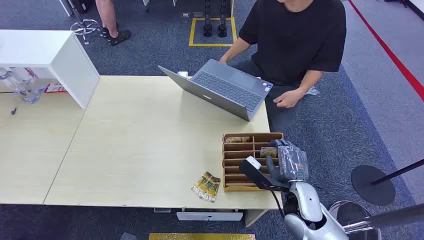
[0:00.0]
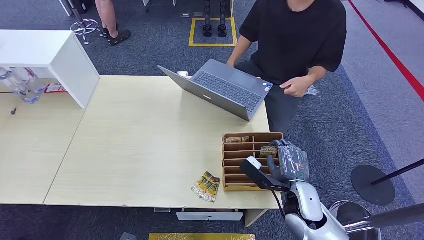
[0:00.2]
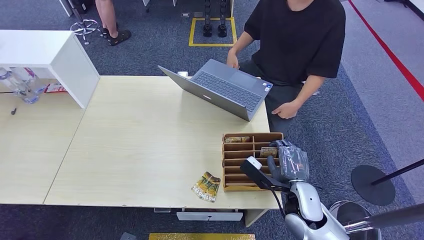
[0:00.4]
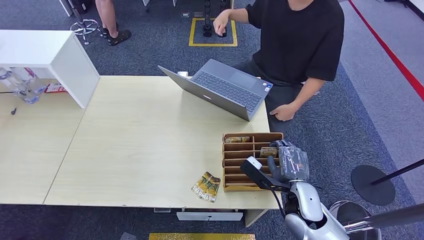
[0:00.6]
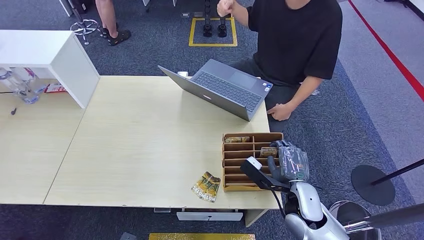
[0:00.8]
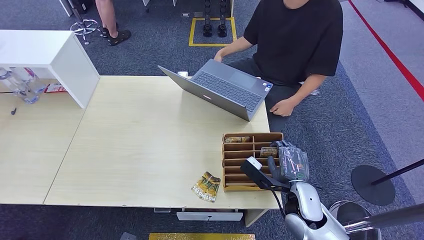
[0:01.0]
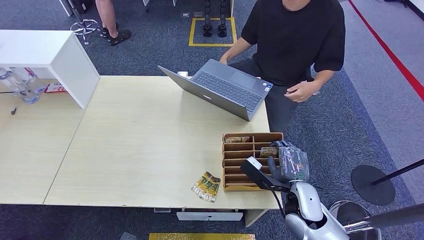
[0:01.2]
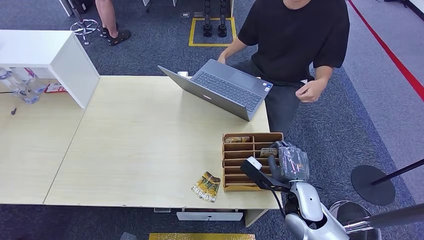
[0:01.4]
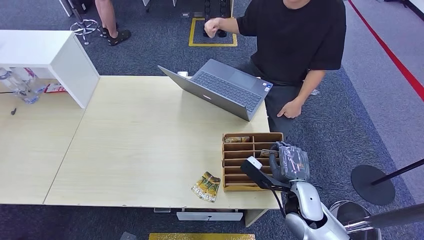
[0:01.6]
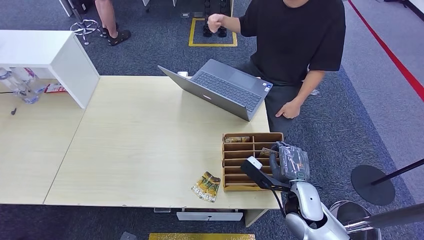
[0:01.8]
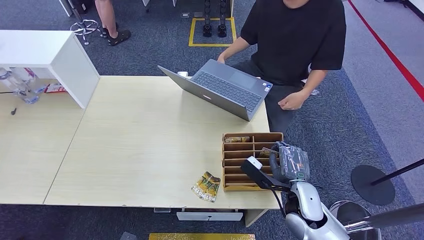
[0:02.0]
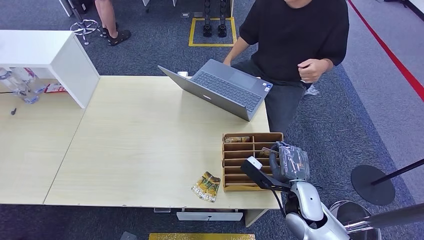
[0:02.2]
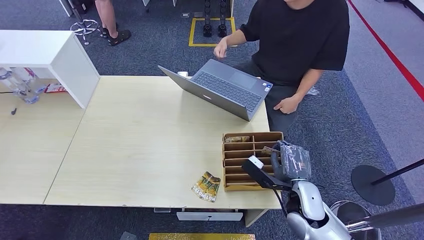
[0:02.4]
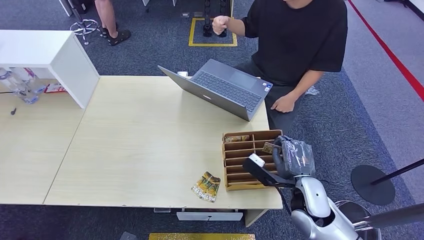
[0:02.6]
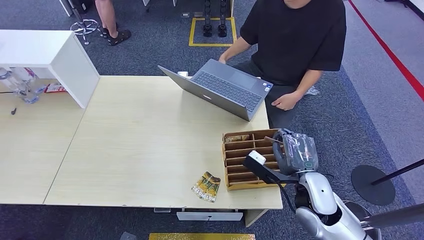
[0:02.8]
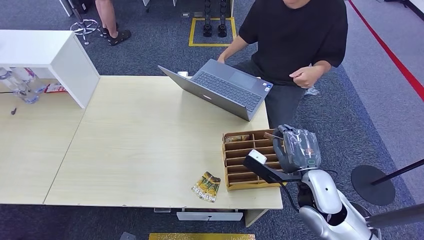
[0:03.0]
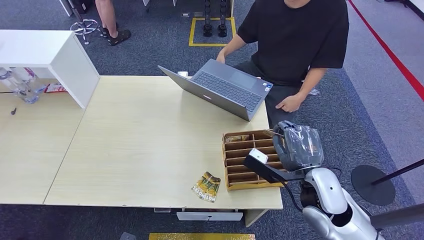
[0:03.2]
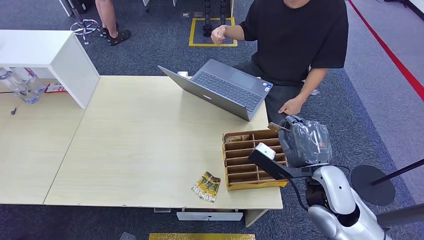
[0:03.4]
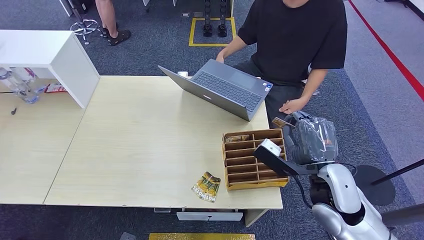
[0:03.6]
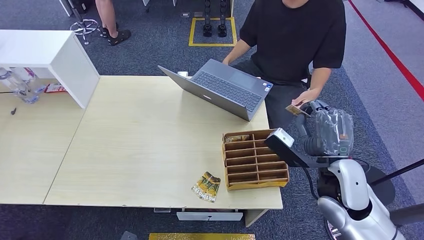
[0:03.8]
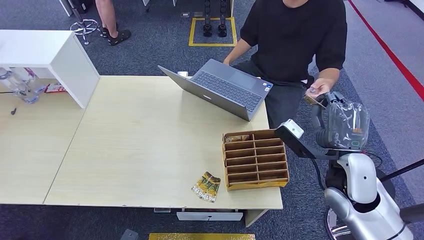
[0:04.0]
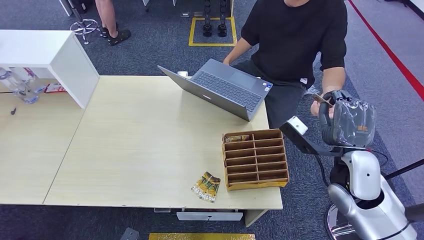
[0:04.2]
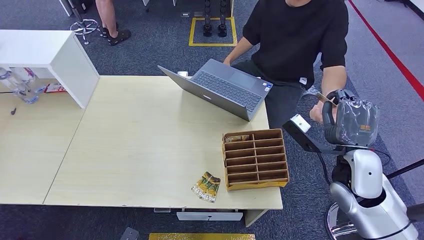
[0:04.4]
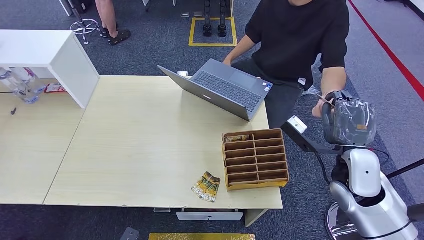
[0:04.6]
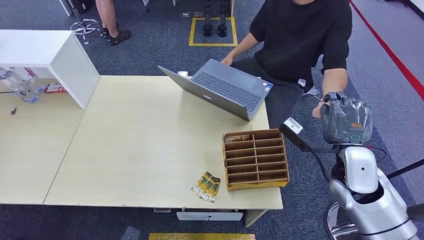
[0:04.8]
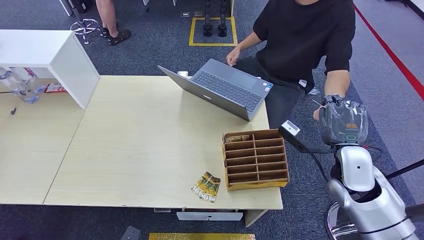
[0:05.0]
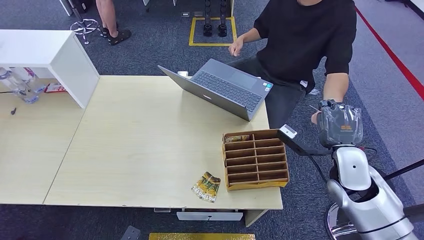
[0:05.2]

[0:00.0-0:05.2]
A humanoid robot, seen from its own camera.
Step, 0:00.0 to 0:02.8: Pick up the room card from the card holder.
Step, 0:03.0 to 0:05.2: Hand the room card to the target.
0:01.8 to 0:03.4: The right hand goes approximately 10 cm upward.
0:03.4 to 0:05.2: The right hand moves to the right, about 5 cm.

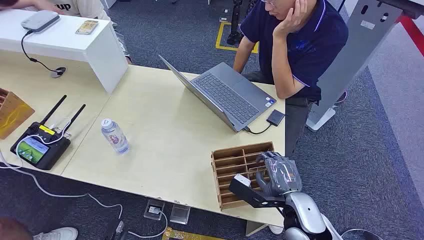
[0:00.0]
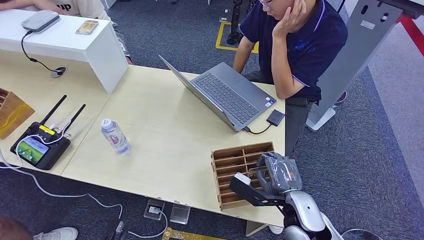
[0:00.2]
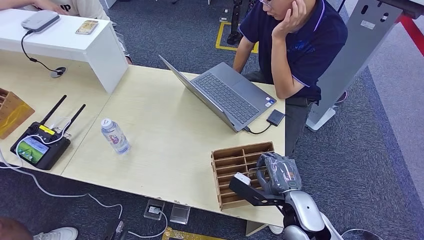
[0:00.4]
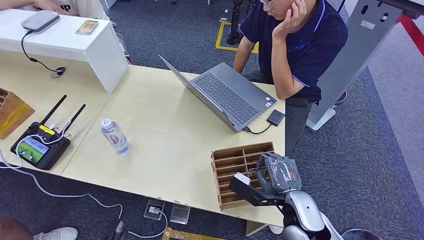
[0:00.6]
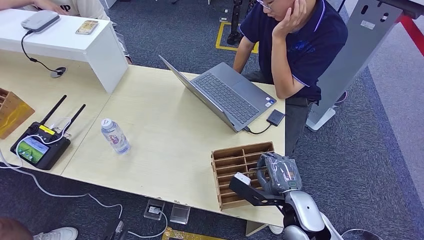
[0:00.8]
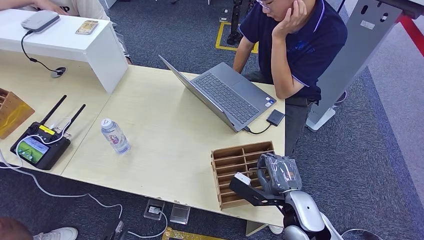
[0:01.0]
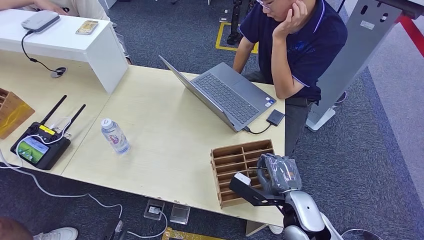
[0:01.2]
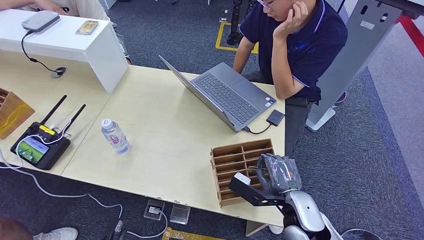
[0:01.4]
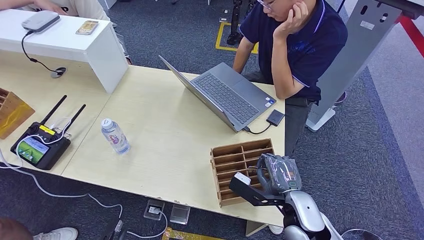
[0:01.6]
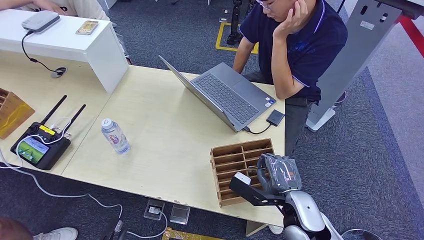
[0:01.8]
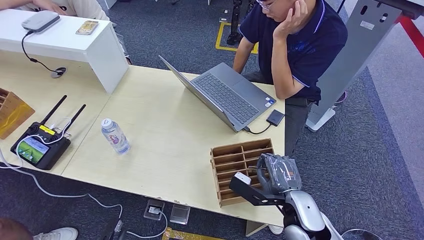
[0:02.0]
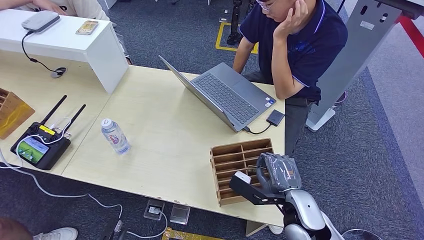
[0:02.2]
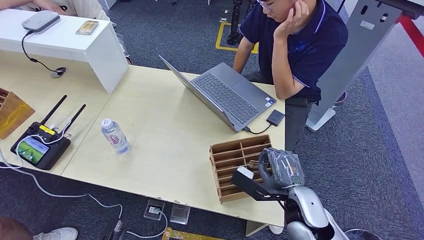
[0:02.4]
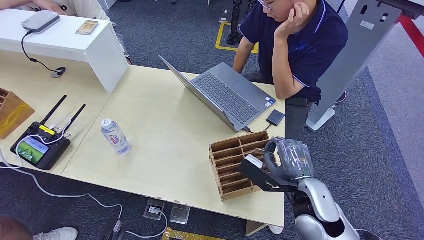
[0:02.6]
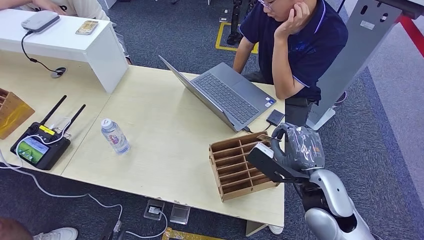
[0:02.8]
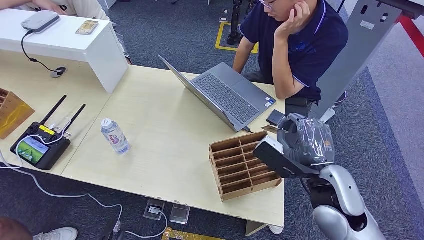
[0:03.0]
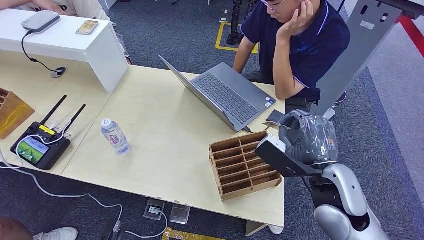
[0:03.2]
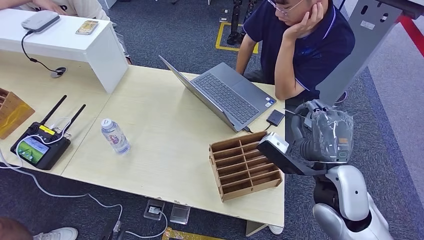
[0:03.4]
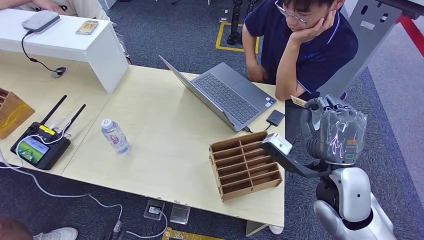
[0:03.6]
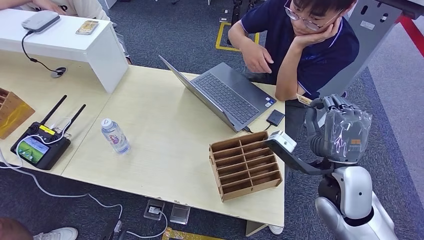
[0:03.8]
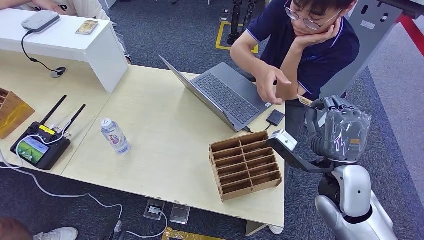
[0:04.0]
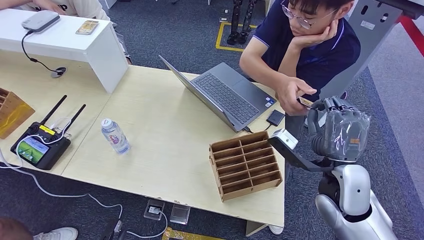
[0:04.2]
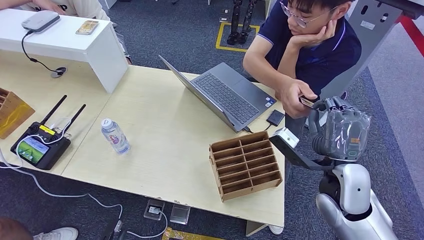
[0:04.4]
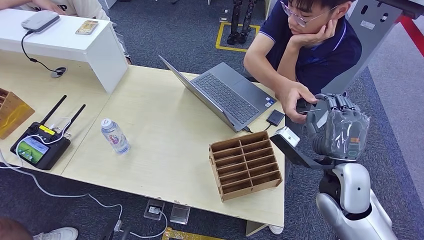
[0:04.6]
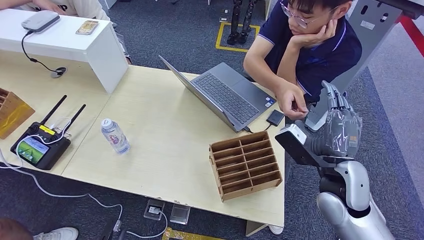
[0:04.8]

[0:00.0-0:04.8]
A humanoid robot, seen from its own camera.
Step, 0:00.0 to 0:02.8: Pick up the room card from the card holder.
Step, 0:03.4 to 0:04.8: Hand the room card to the target.
0:01.6 to 0:03.2: The right hand travels upward by some 10 cm.
